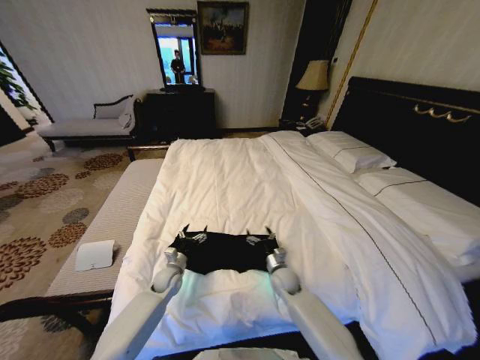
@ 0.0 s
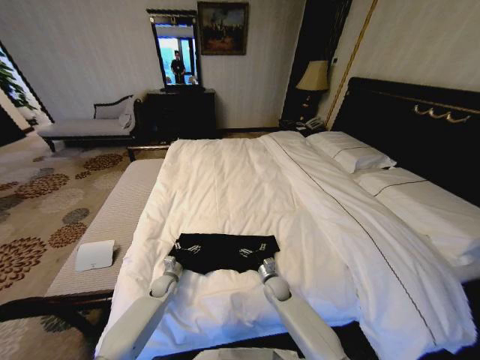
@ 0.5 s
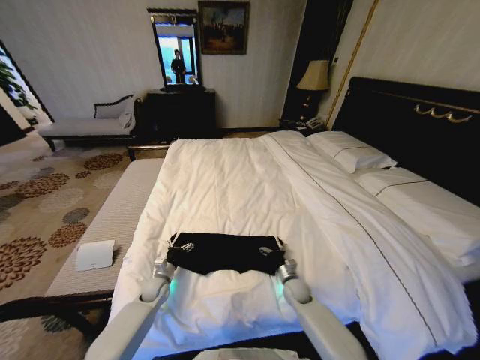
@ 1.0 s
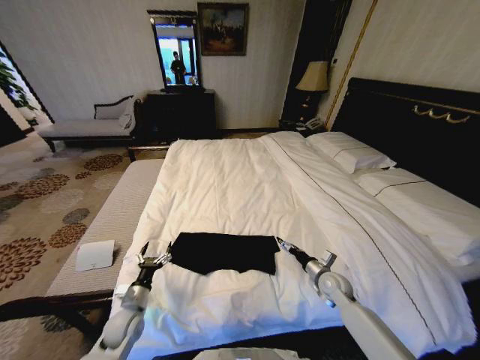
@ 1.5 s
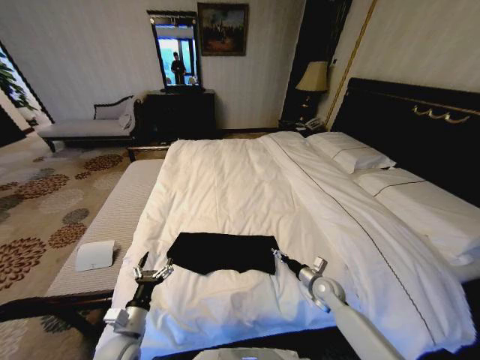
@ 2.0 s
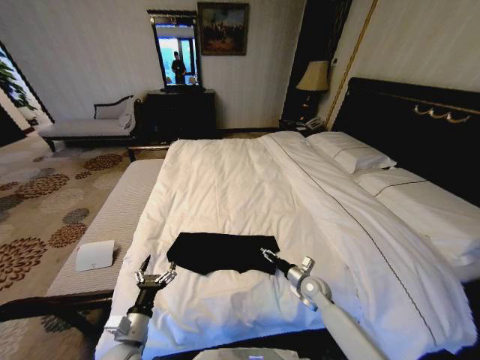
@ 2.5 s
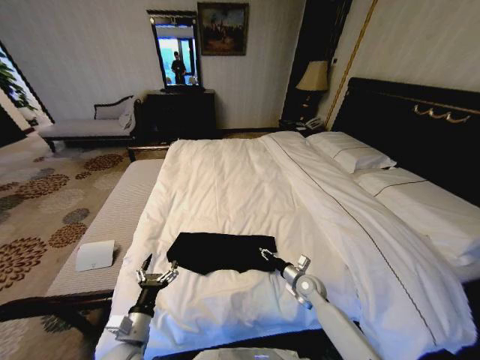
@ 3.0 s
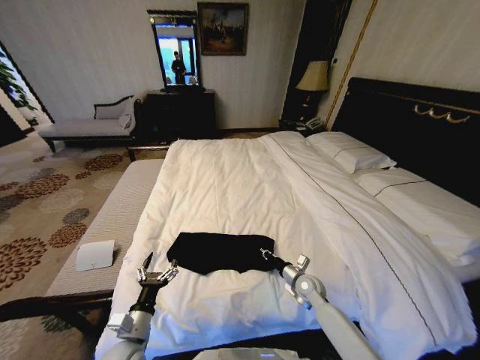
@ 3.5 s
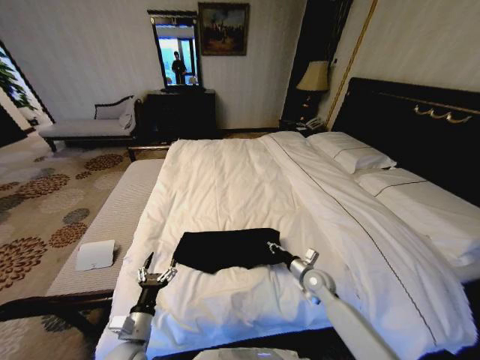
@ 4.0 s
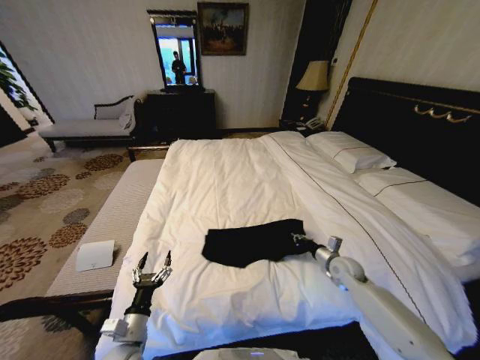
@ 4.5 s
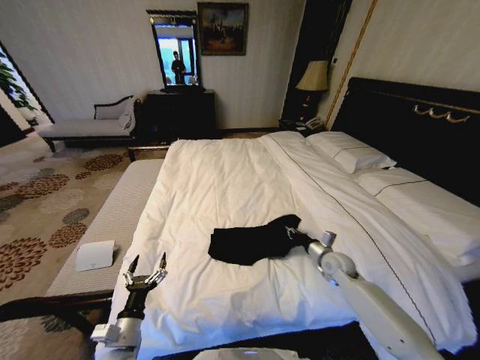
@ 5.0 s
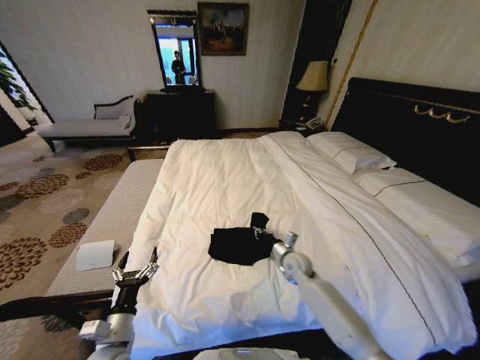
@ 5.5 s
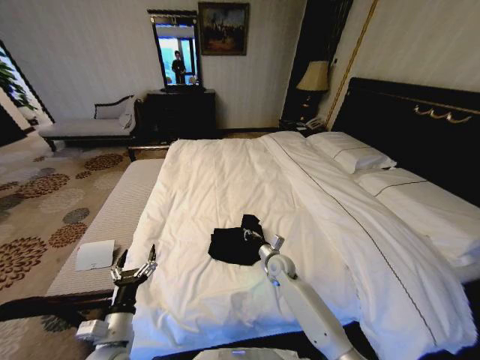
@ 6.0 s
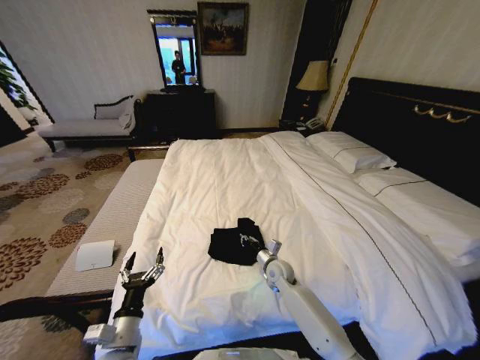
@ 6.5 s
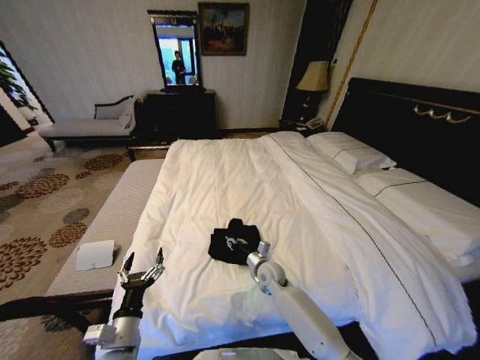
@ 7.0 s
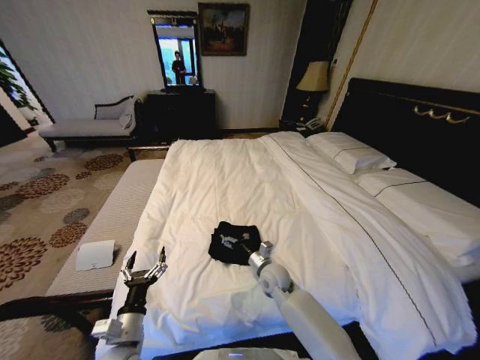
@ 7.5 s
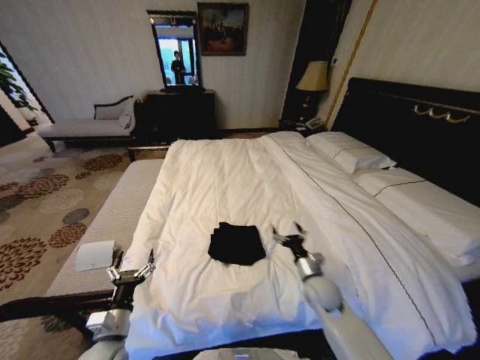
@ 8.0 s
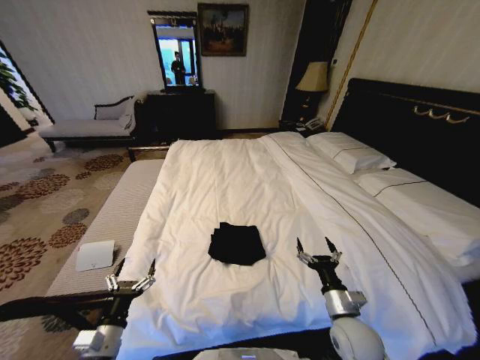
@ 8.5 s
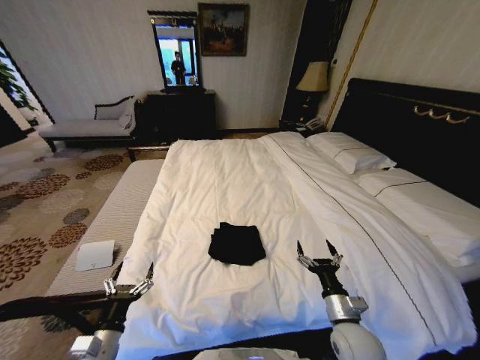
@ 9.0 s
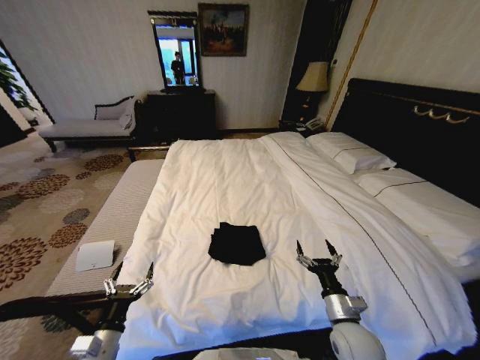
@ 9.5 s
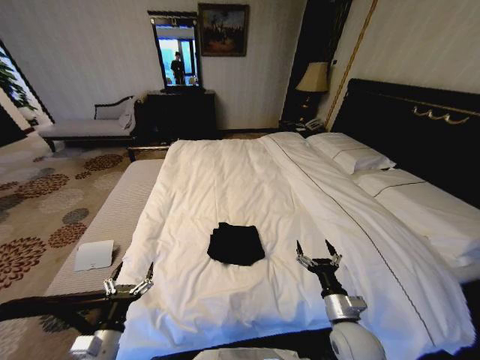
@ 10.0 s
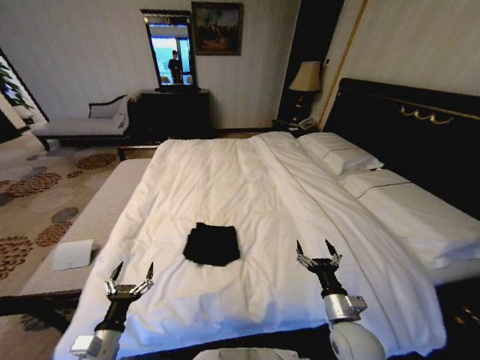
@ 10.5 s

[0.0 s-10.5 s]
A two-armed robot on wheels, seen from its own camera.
Task of the whole recording: Fold the clothes on the bed.
0.0 to 2.0 s: The left gripper heads backward, covering roughly 20 cm. Meanwhile the right gripper moves to the right, about 15 cm.
2.0 to 4.0 s: The right gripper changes place by approximately 5 cm, and closes its fingers.
4.0 to 6.5 s: The right gripper goes about 10 cm to the left.
6.5 to 8.5 s: The left gripper is displaced to the left by about 5 cm, while the right gripper heads backward and to the right, covering about 25 cm, and opens its fingers.

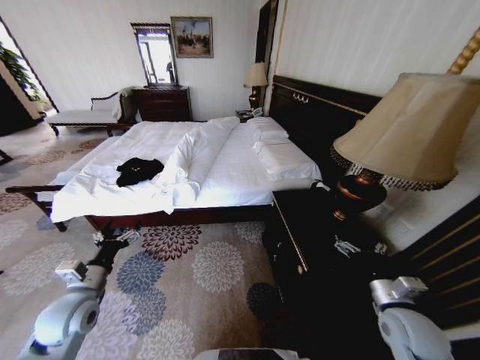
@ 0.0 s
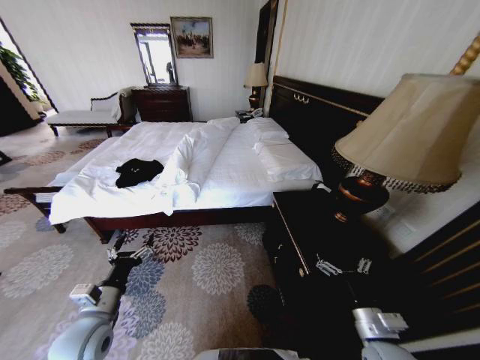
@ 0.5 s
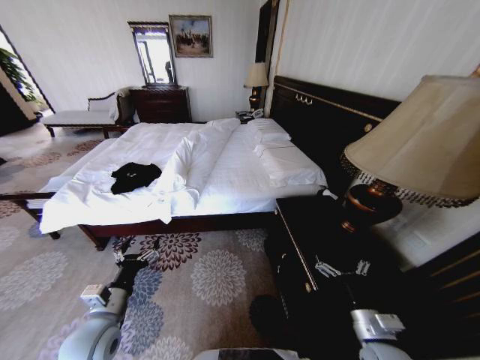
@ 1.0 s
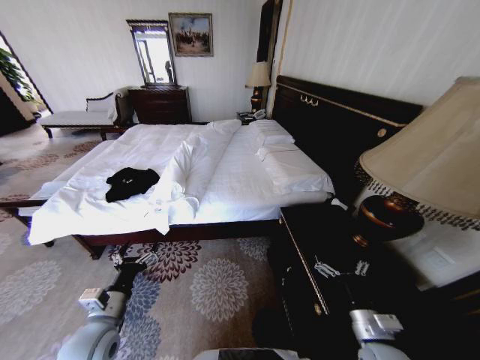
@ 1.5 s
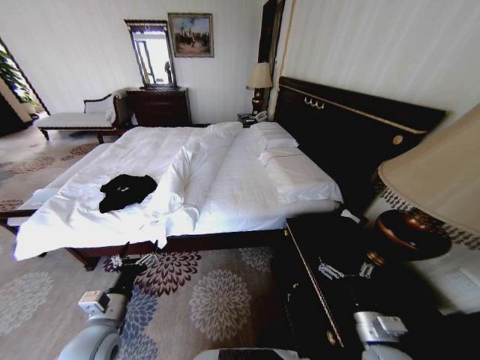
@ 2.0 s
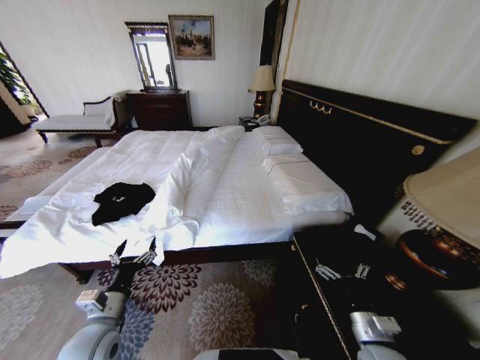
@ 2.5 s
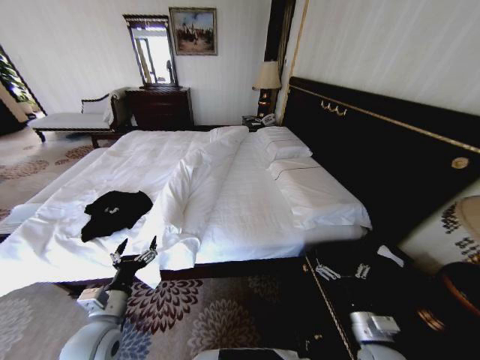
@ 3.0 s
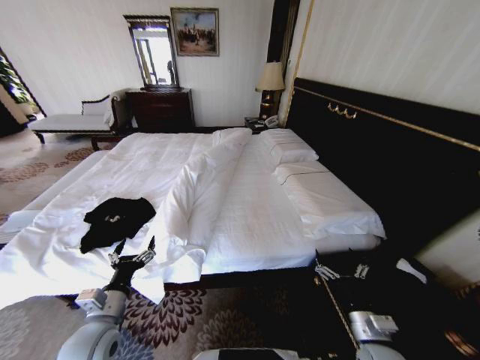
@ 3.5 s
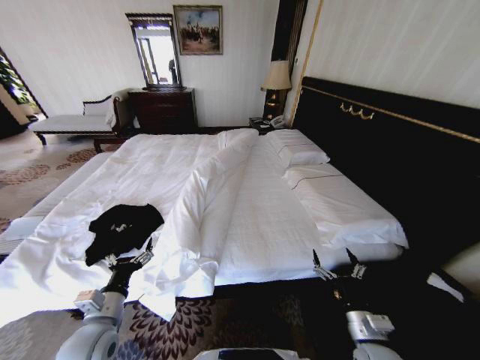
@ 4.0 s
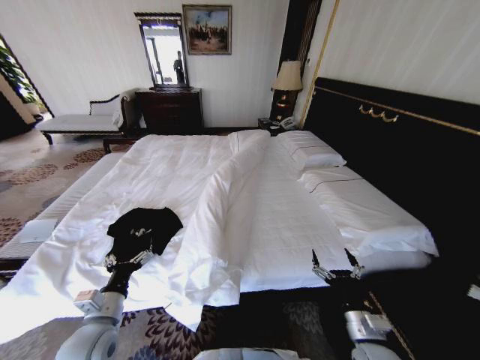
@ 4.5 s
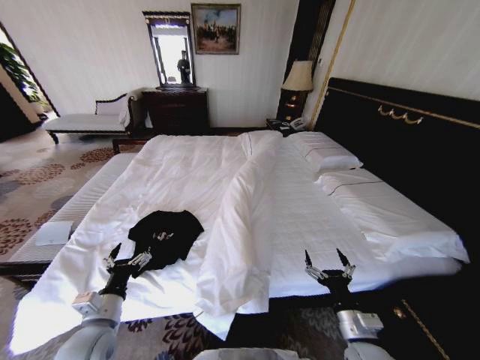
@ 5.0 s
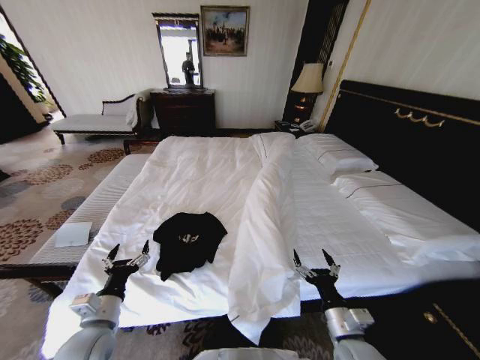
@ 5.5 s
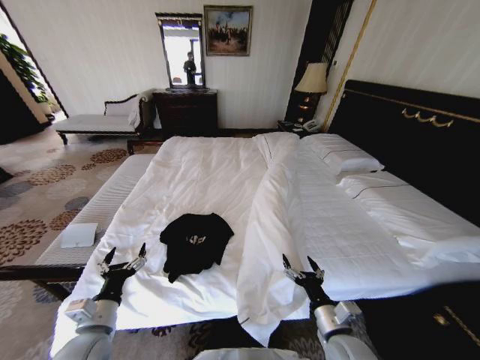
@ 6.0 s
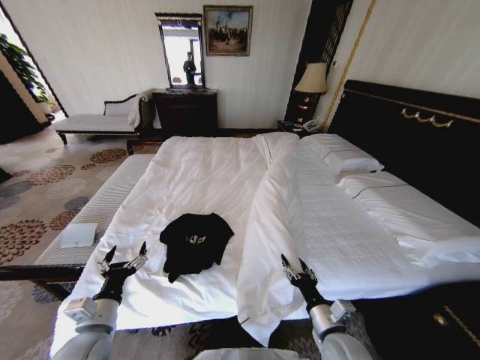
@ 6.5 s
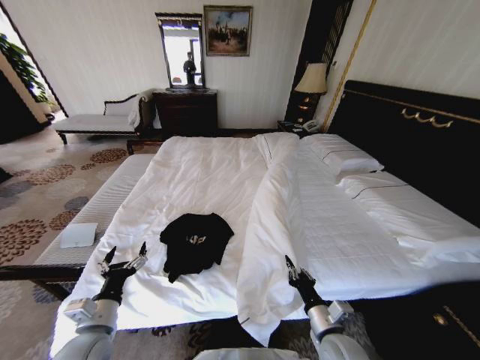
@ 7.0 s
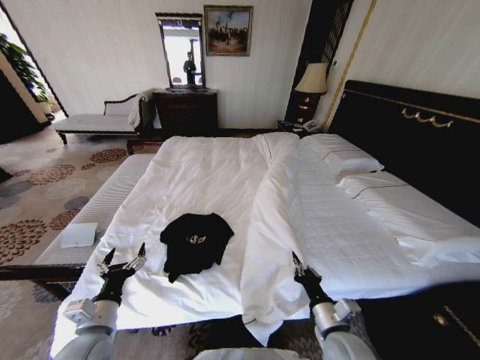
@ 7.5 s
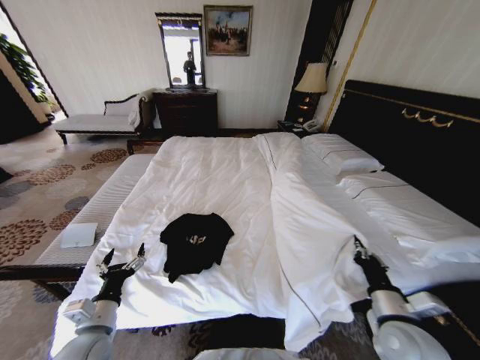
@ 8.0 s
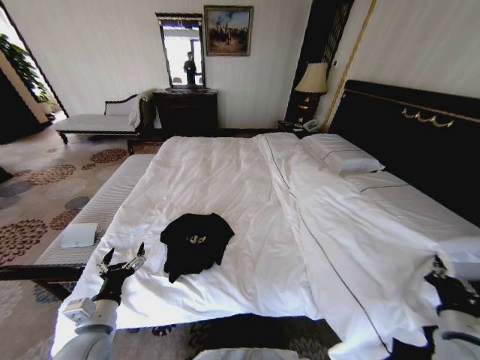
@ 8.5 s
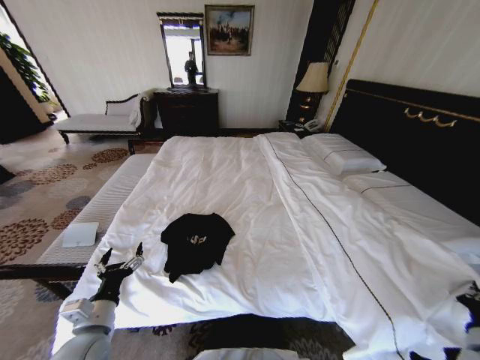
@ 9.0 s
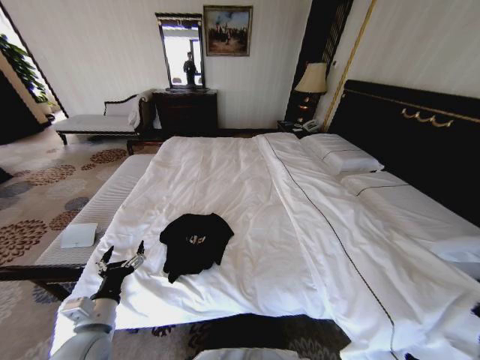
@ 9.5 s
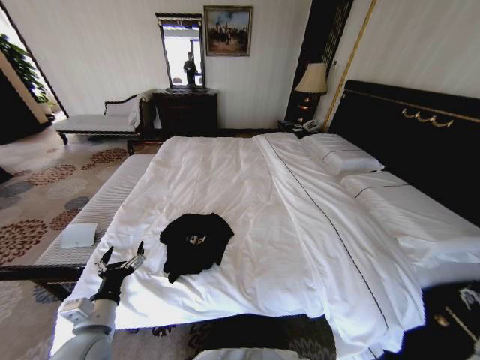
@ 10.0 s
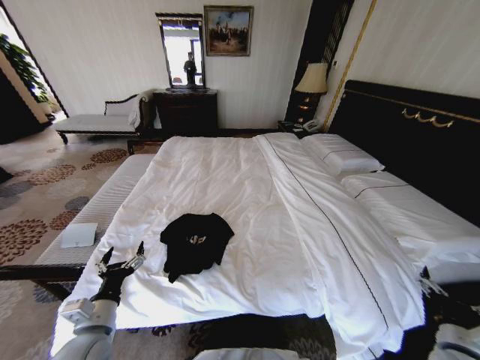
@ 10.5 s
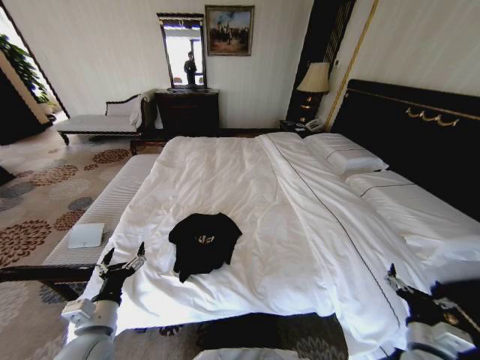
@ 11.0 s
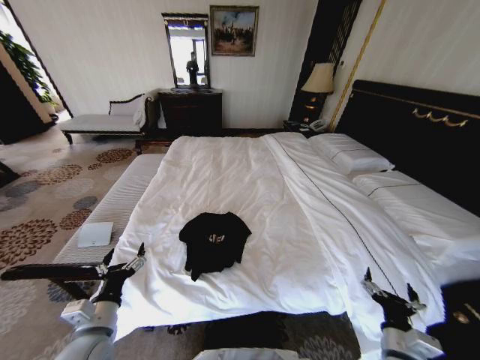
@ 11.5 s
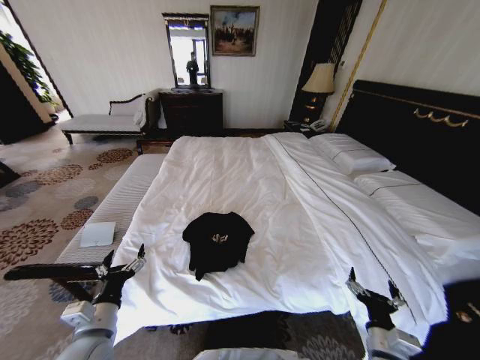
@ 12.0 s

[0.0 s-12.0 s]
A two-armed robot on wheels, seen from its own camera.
Task of the whole recording: Fold the clothes on the bed.
4.0 to 6.0 s: The right gripper shifts approximately 5 cm to the left.
6.0 to 8.0 s: The right gripper is displaced to the right and upward by roughly 10 cm, and closes up.
8.0 to 10.0 s: The right gripper heads to the right, covering about 20 cm, and opens up.
10.0 to 12.0 s: The right gripper travels to the left by roughly 20 cm.

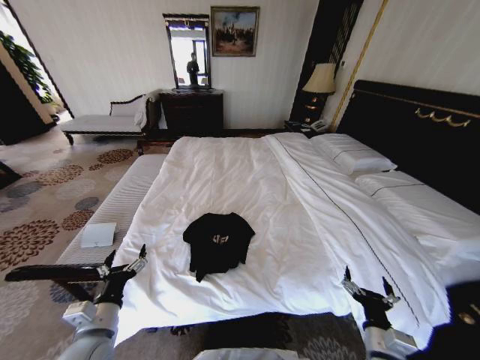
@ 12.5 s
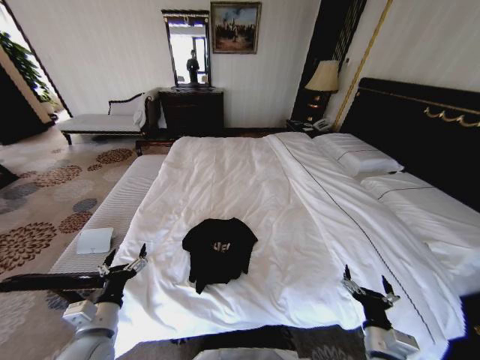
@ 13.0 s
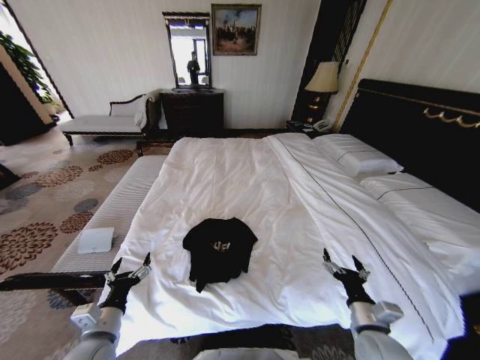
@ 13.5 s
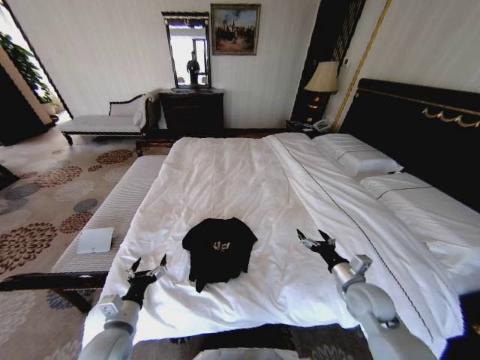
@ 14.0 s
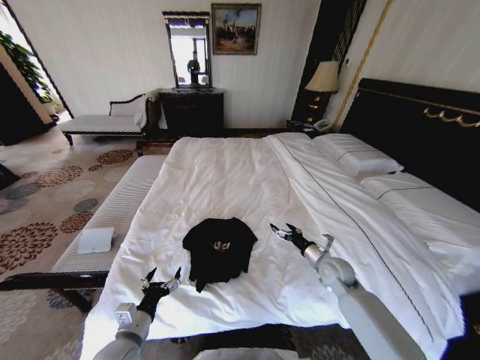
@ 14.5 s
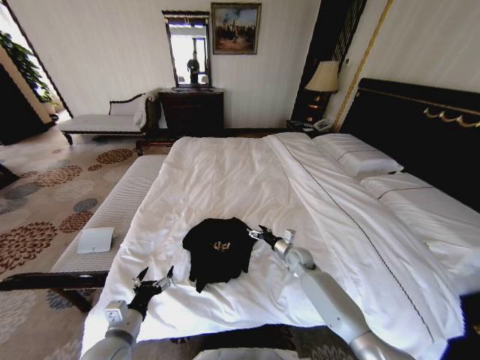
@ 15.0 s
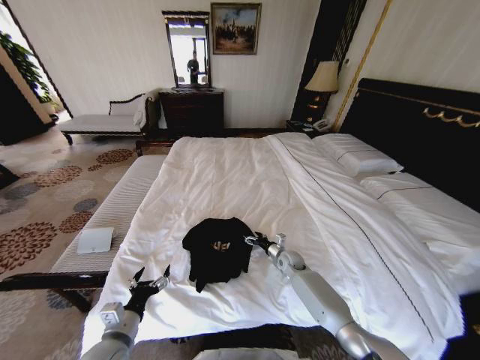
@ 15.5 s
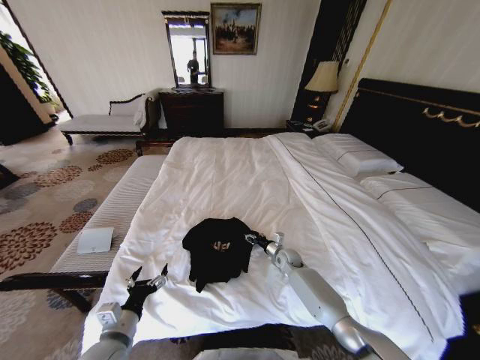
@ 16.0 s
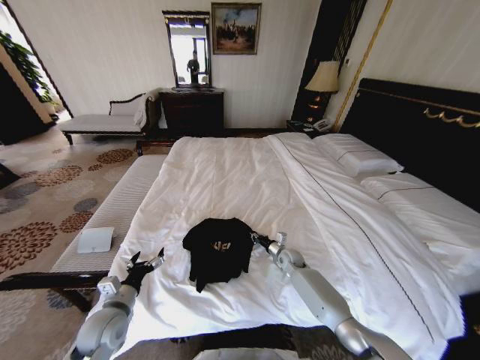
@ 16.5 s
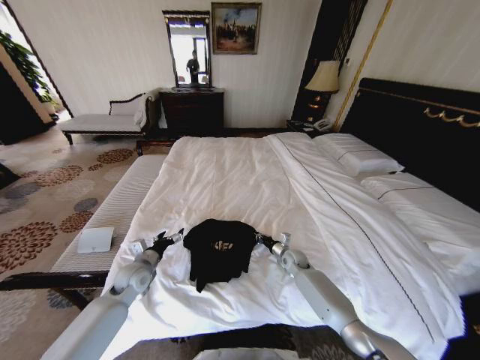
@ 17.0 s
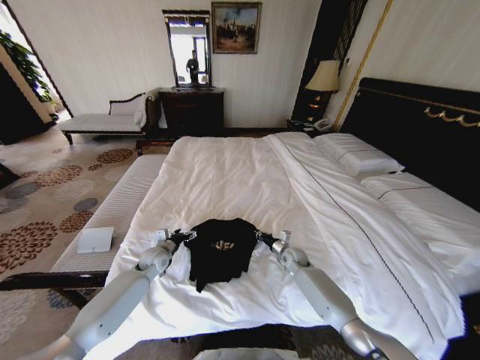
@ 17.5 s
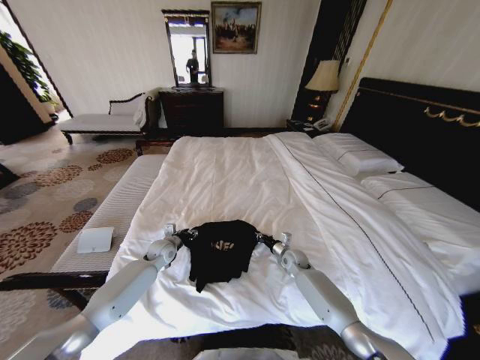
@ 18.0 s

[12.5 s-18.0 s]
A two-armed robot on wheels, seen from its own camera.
Task of the whole recording: Fold the clothes on the bed.
12.5 to 14.5 s: The right gripper shifts some 25 cm forward; the left gripper moves downward, about 5 cm.
14.5 to 16.0 s: The right gripper heads downward, forward and to the left, covering approximately 20 cm.
16.0 to 18.0 s: The right gripper closes its fingers, while the left gripper shifts roughly 30 cm forward.
